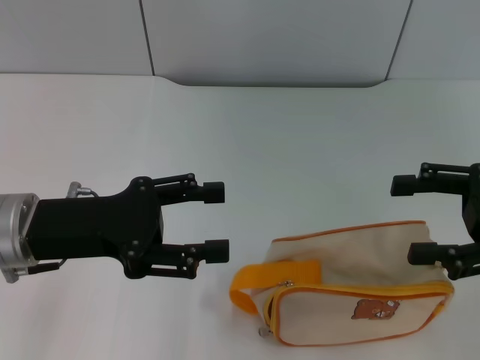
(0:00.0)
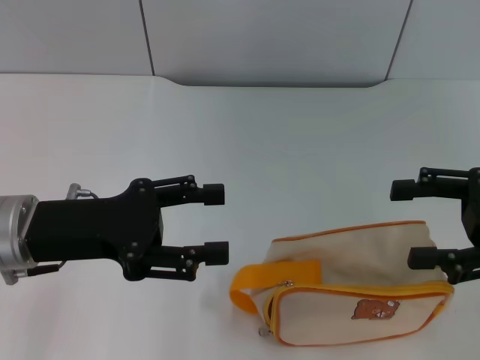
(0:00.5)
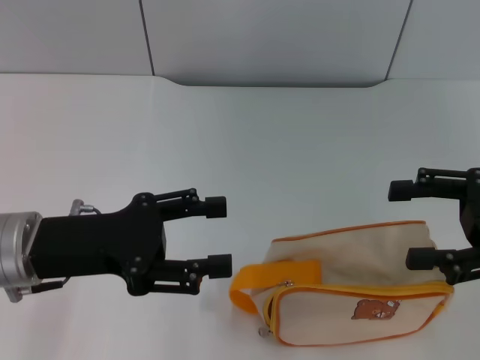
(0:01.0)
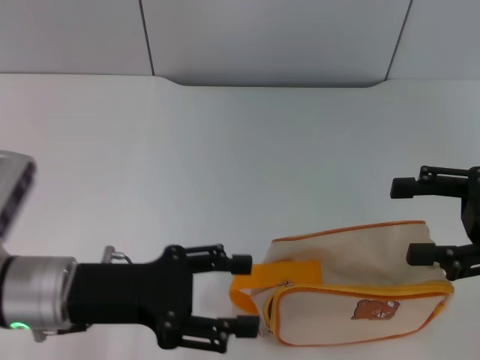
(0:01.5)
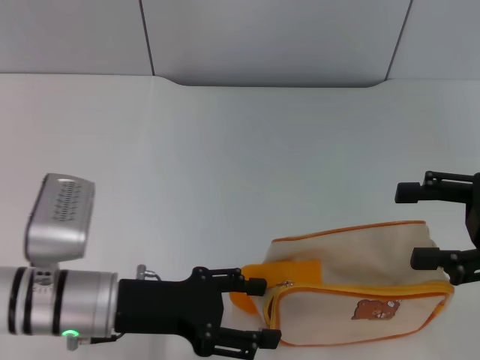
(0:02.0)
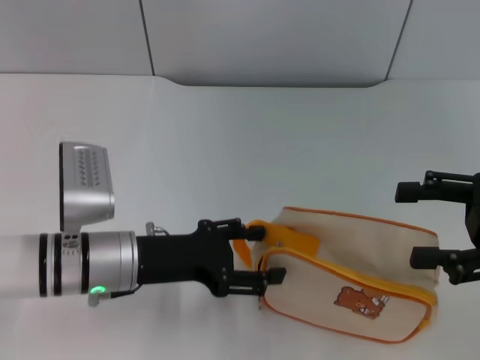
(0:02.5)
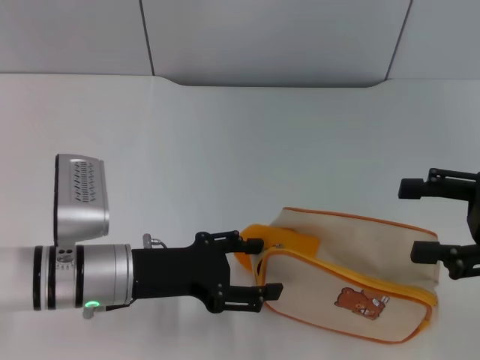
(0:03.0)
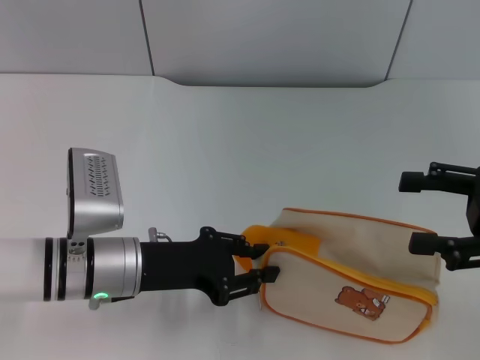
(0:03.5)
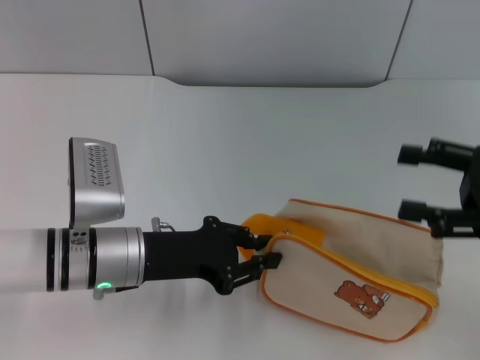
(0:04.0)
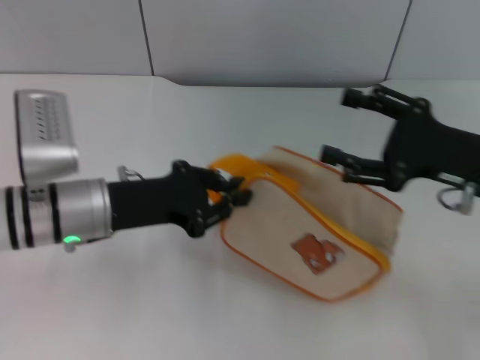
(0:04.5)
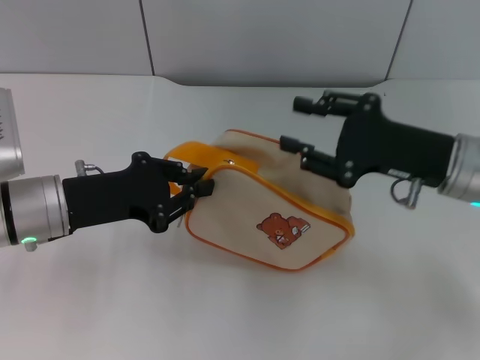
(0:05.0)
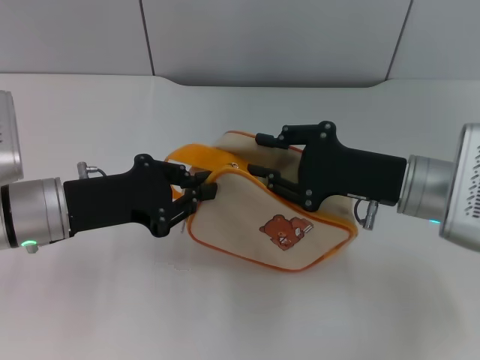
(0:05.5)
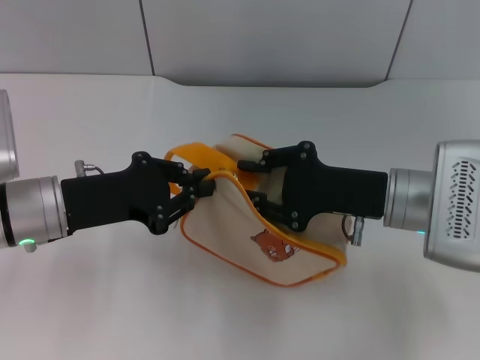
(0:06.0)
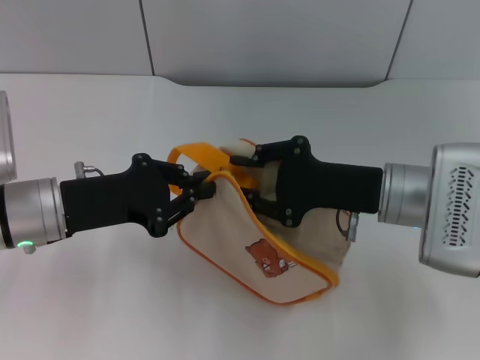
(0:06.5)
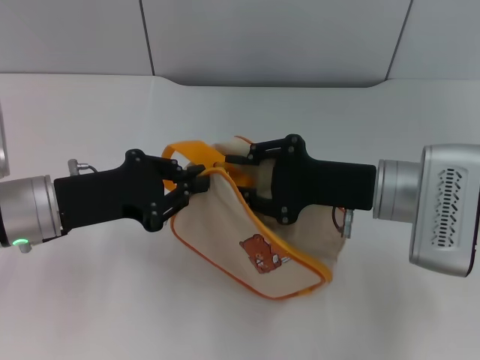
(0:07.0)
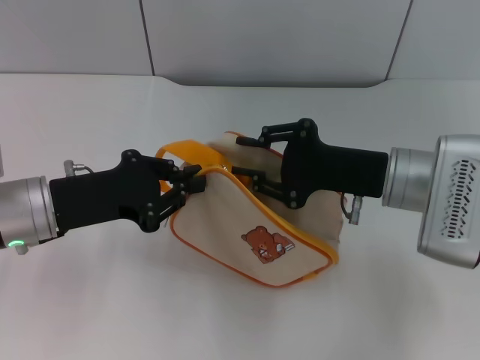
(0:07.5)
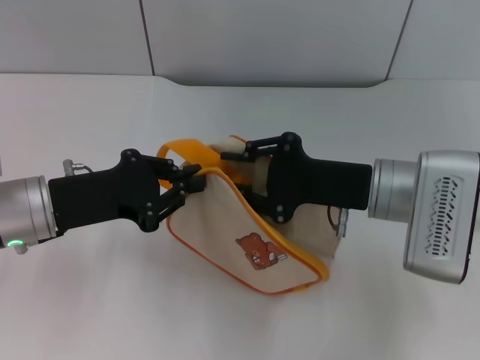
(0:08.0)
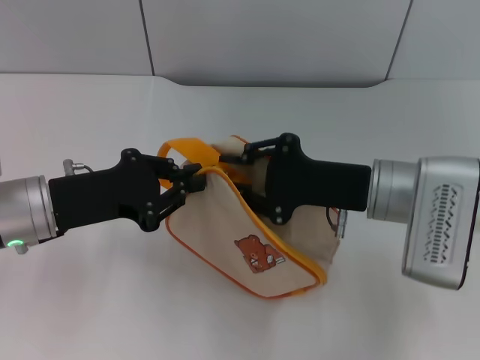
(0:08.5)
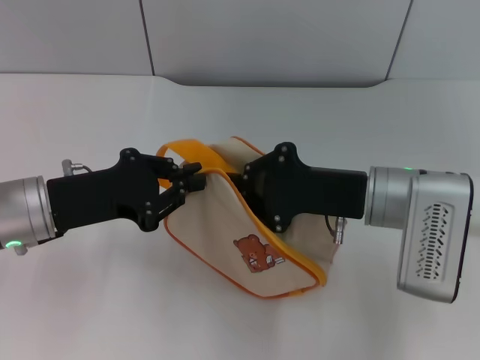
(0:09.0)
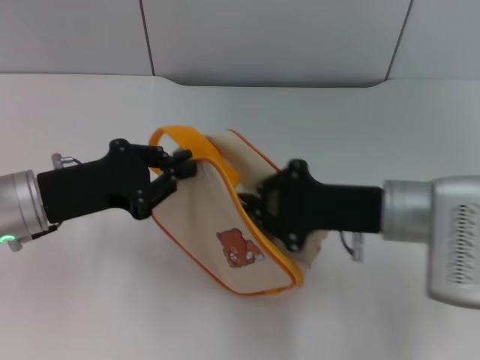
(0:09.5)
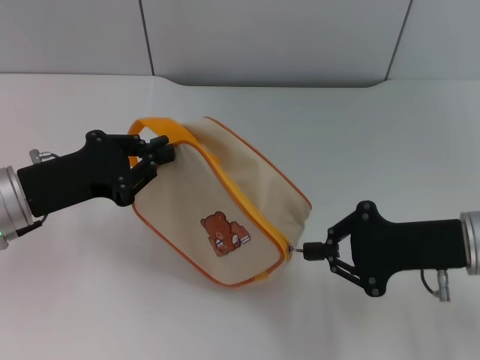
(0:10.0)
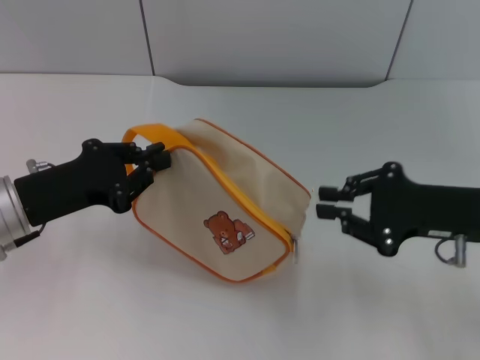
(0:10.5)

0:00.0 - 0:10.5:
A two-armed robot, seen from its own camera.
Step, 0:00.0 - 0:04.5: Pick up the bag with left gripper.
0:00.0 - 0:02.0: The left gripper goes some 5 cm downward.
0:02.0 - 0:04.0: The left gripper closes its fingers.
0:04.0 - 0:06.5: The left gripper heads to the left, covering about 5 cm. The right gripper moves to the left, roughly 15 cm, and closes up.
0:06.5 - 0:08.5: The grippers make only small movements.
0:08.5 - 0:10.5: The right gripper travels to the right by approximately 10 cm.

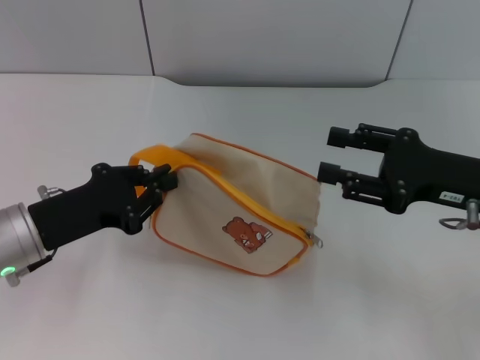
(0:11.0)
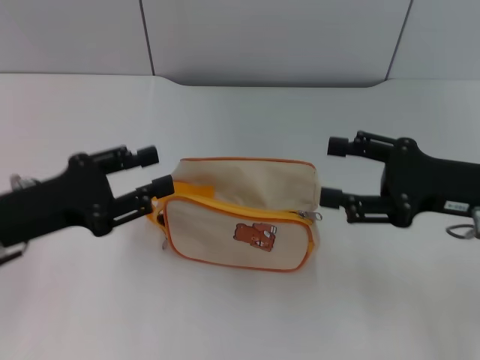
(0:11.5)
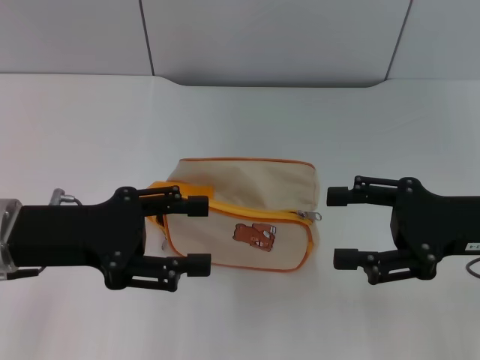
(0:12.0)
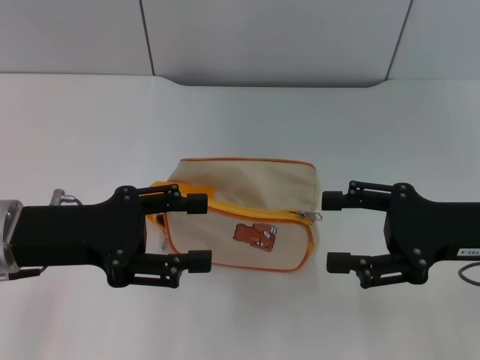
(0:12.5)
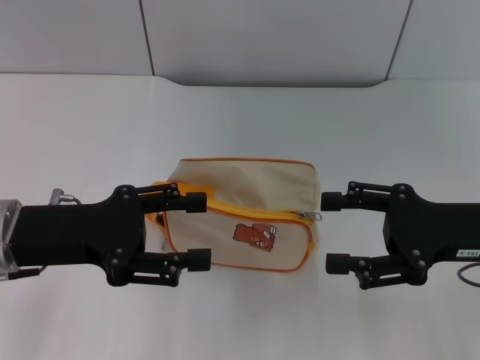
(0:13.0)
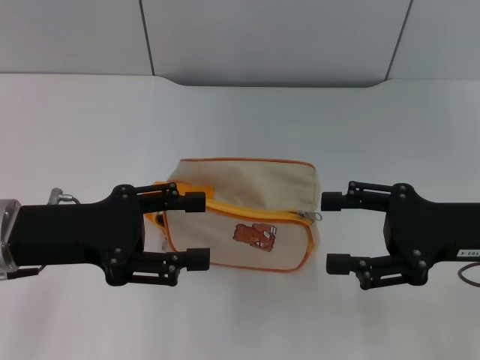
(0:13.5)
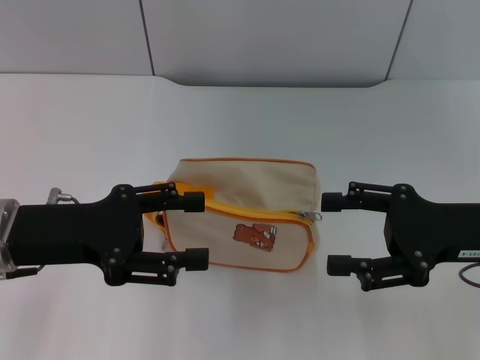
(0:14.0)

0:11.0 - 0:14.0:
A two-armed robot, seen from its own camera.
Step, 0:11.0 - 0:11.5: Place the bag on the table with left gripper.
0:11.0 - 0:12.5: The right gripper opens its fingers. Meanwhile the left gripper goes roughly 5 cm upward, and opens.
0:12.5 - 0:14.0: Both grippers stay about where they are.
